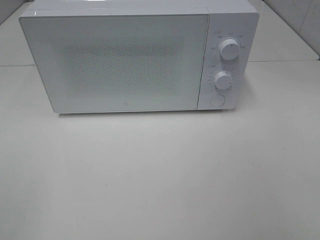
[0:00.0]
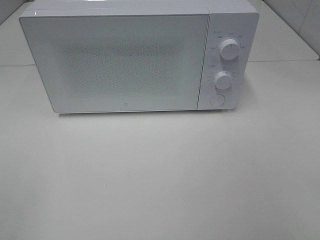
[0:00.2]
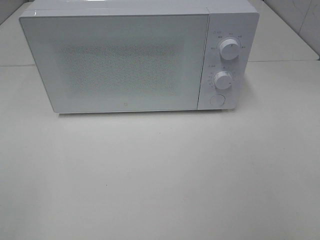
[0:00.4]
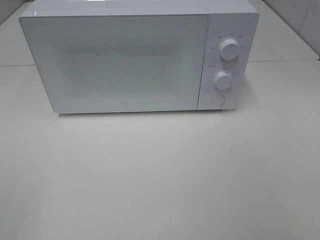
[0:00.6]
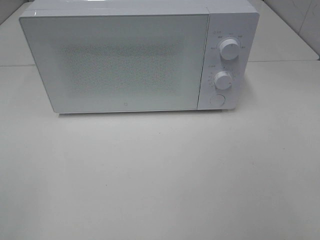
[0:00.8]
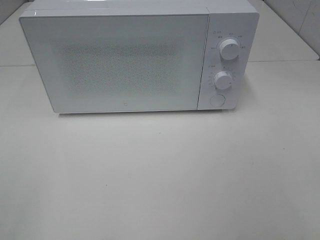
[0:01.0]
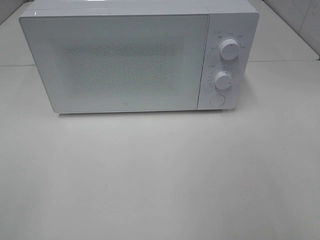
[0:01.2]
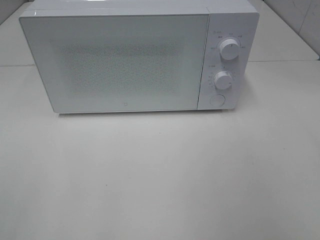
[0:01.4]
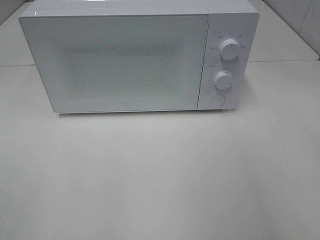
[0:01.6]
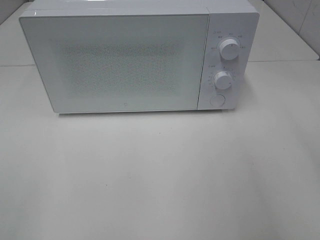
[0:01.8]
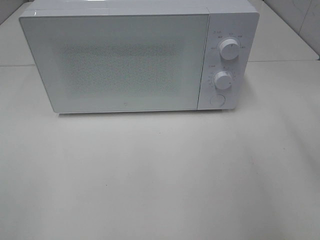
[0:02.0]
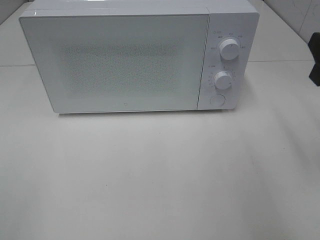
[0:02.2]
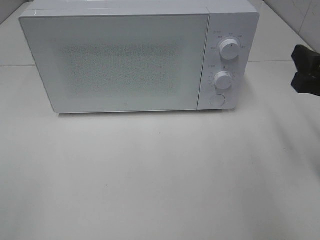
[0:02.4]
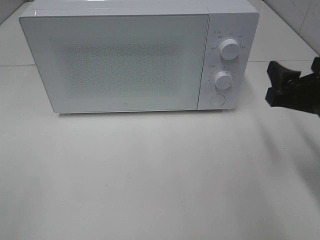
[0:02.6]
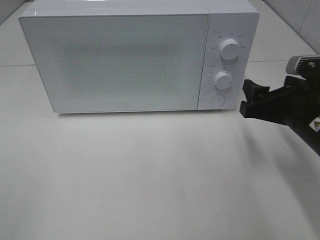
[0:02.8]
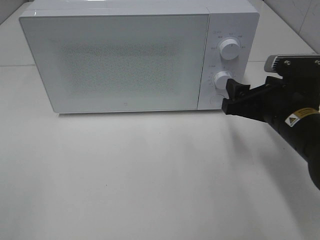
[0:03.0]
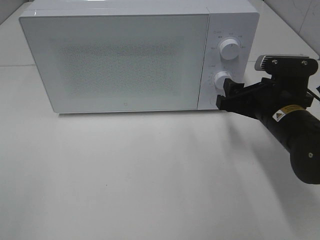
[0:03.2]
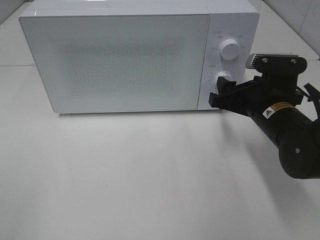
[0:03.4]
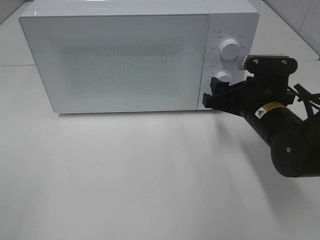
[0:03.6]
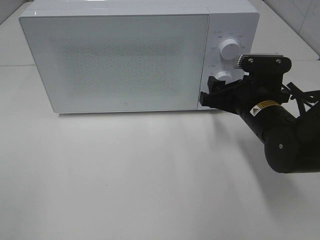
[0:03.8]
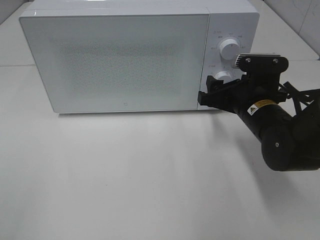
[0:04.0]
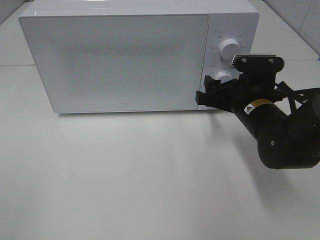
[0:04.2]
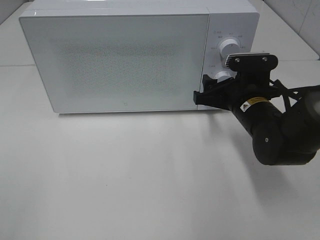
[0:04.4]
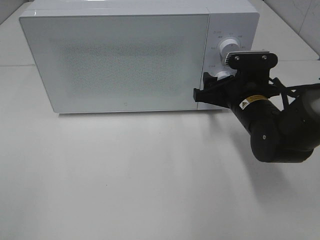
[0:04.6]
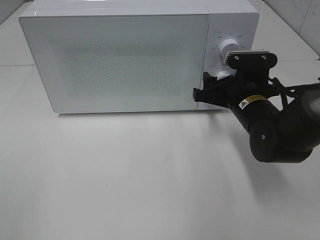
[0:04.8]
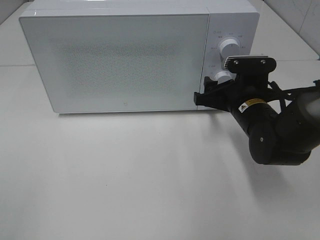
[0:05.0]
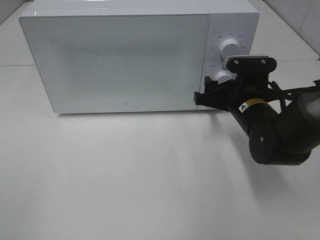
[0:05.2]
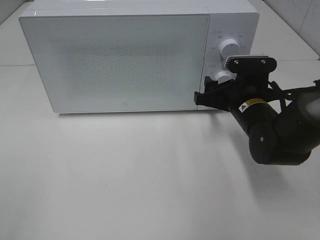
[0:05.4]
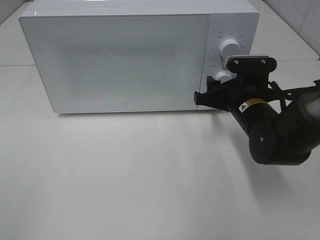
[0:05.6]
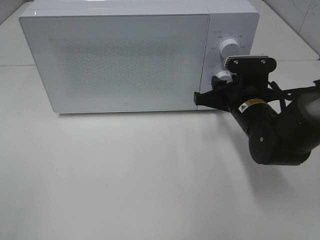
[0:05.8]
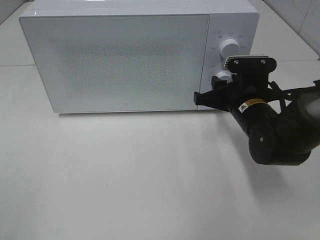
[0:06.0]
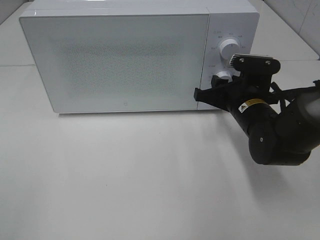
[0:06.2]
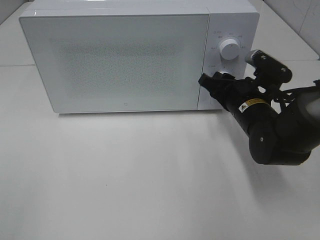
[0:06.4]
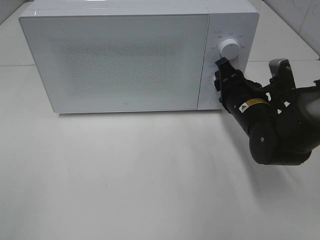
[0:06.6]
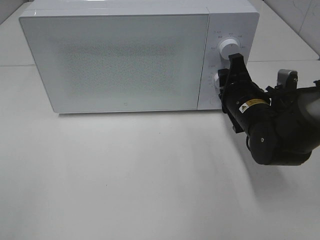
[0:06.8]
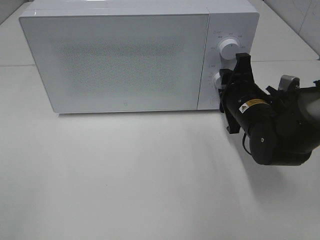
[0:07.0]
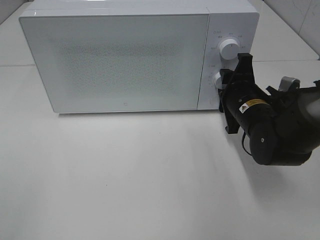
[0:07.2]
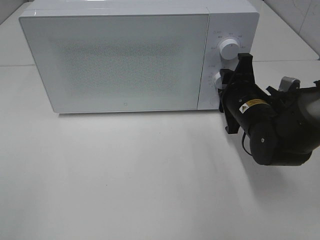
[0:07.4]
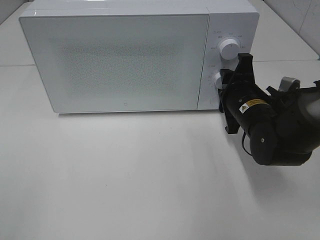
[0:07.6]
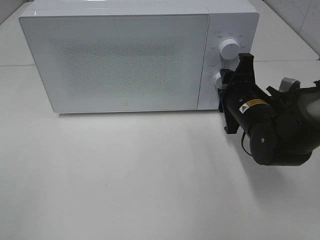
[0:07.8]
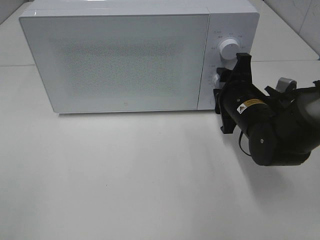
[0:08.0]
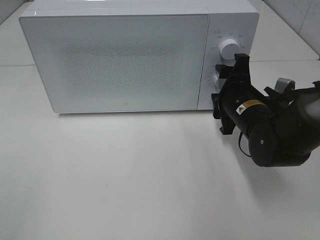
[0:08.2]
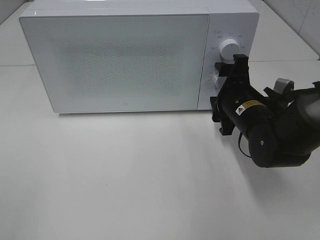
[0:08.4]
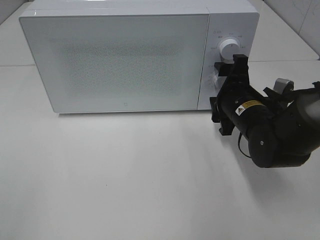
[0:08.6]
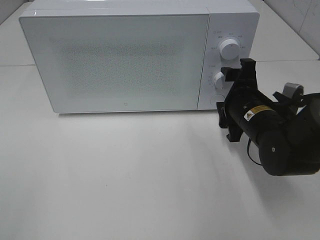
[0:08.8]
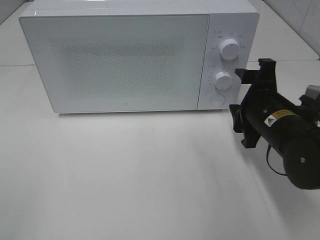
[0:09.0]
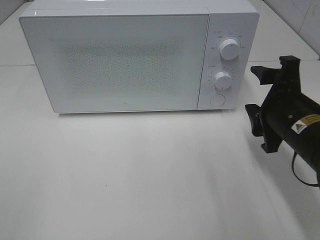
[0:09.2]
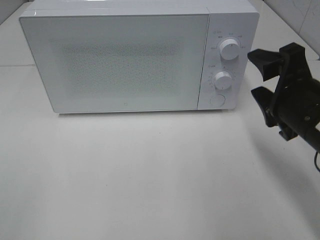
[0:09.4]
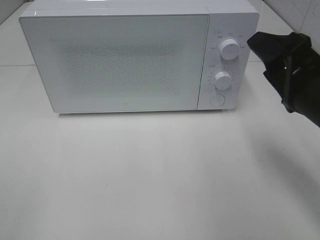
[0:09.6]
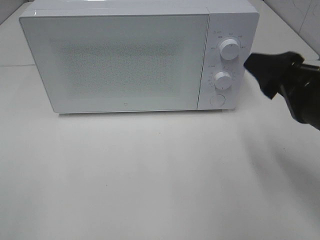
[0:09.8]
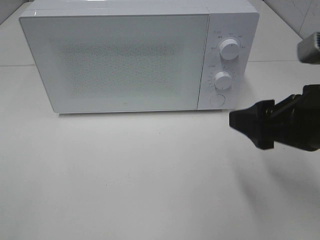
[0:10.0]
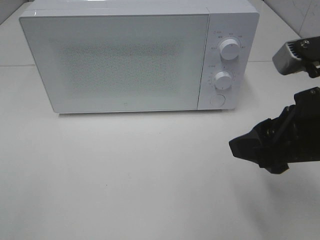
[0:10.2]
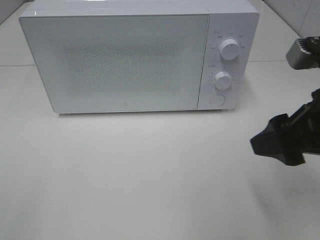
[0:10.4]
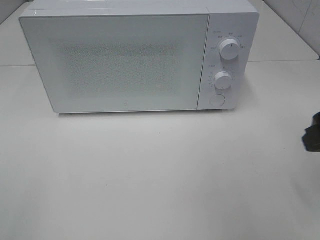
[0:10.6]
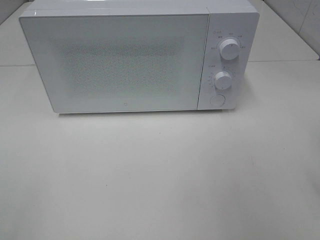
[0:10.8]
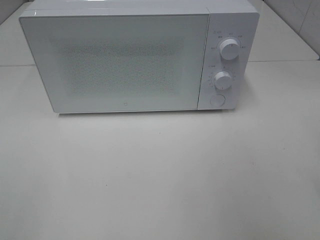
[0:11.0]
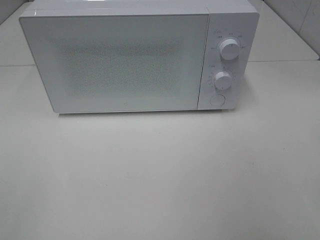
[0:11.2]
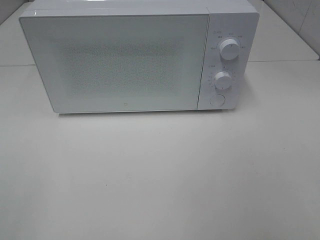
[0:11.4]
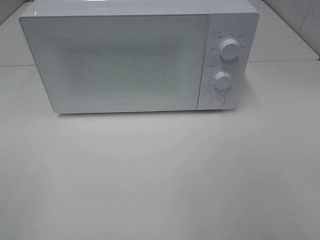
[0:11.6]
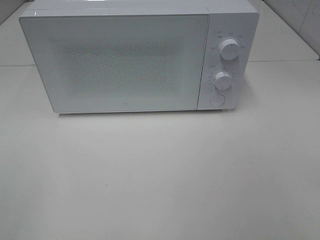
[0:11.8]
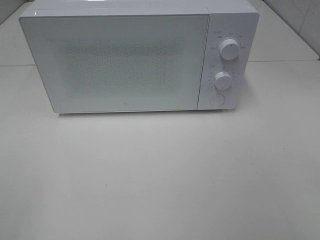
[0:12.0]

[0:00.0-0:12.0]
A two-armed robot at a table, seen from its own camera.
Task of the whole recording: Heat the burger.
Step, 0:00.0 to 0:08.8: Right hand: twist timer button.
0:01.6 to 0:03.0: The right gripper moves downward, forward and to the left, approximately 25 cm.
0:03.0 to 0:04.4: The right gripper heads forward, covering some 5 cm.
0:04.4 to 0:06.0: Both grippers stay put.
0:07.6 to 0:09.0: The right gripper ends up about 5 cm from where it was.
0:09.0 to 0:10.4: The right gripper is displaced upward and backward by roughly 15 cm.
0:10.4 to 0:12.0: The right gripper shifts approximately 20 cm backward and to the right.

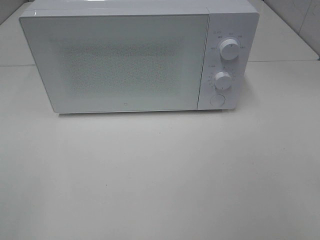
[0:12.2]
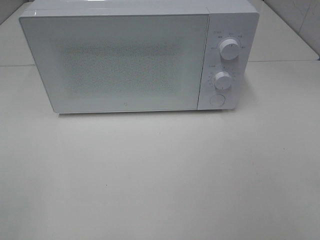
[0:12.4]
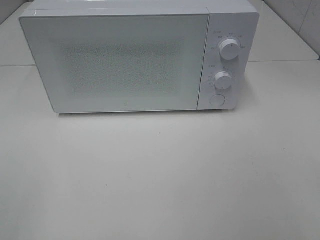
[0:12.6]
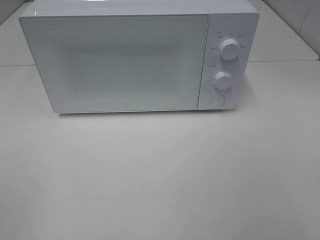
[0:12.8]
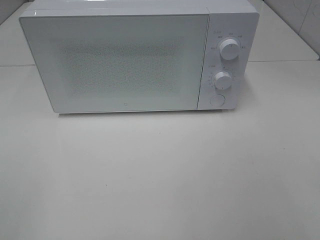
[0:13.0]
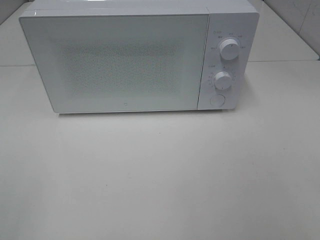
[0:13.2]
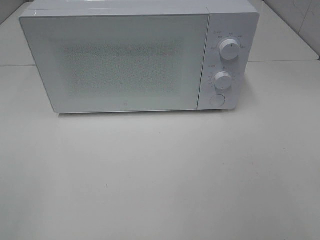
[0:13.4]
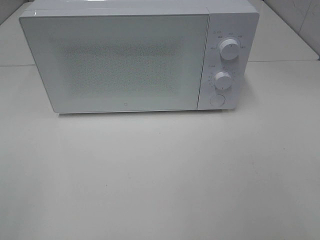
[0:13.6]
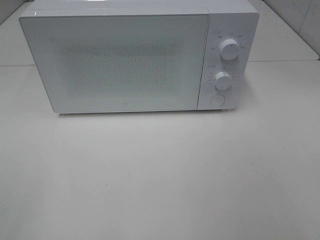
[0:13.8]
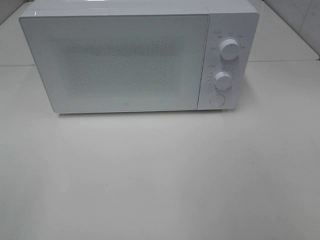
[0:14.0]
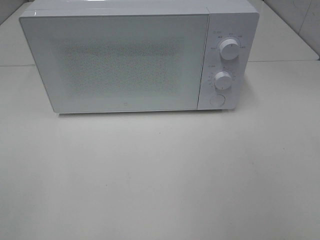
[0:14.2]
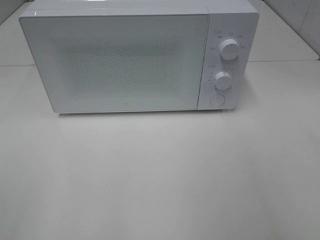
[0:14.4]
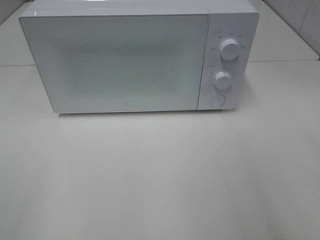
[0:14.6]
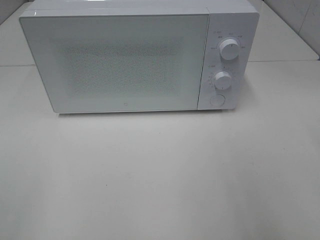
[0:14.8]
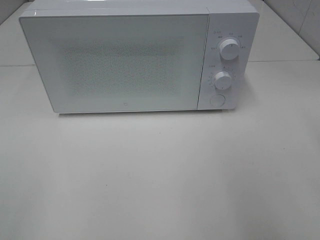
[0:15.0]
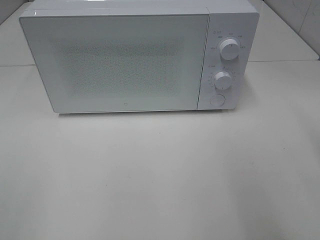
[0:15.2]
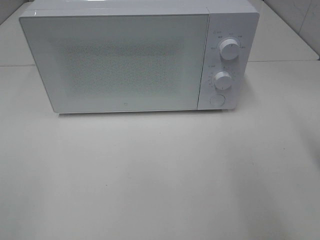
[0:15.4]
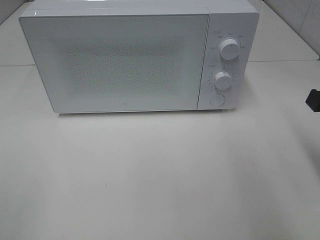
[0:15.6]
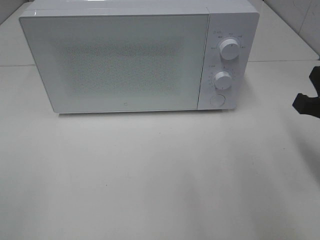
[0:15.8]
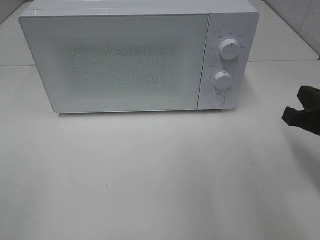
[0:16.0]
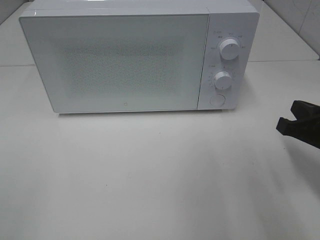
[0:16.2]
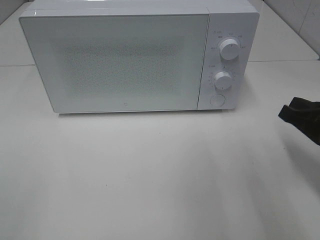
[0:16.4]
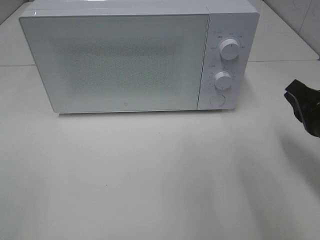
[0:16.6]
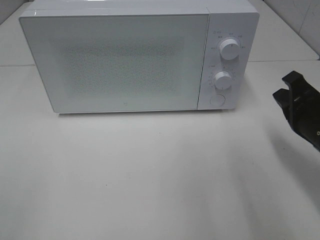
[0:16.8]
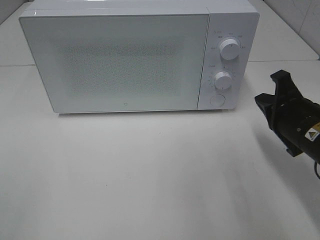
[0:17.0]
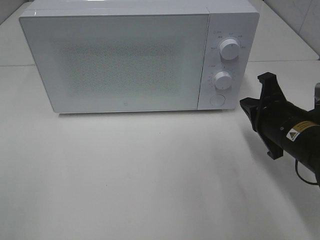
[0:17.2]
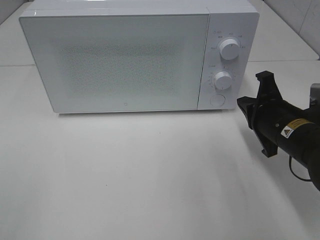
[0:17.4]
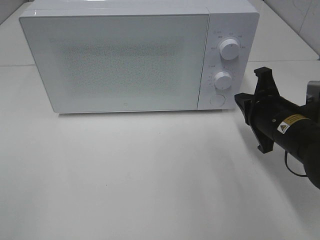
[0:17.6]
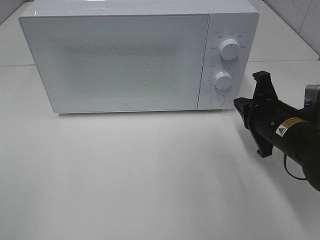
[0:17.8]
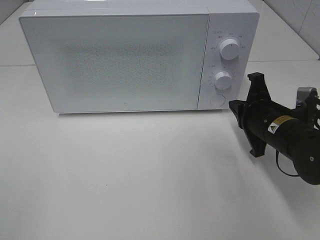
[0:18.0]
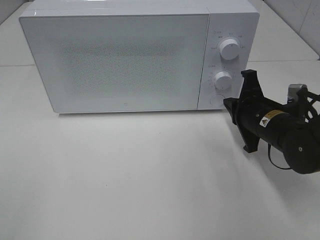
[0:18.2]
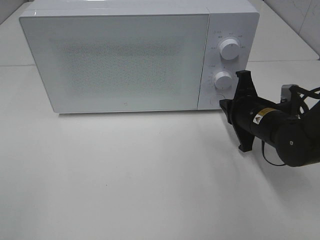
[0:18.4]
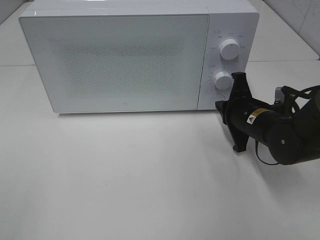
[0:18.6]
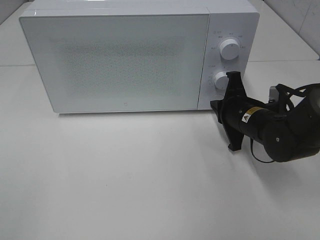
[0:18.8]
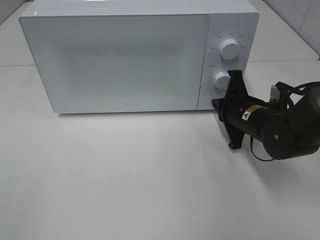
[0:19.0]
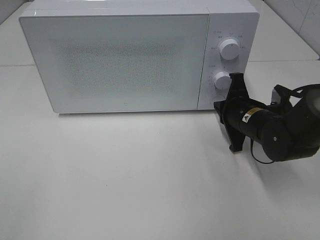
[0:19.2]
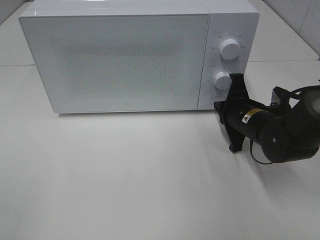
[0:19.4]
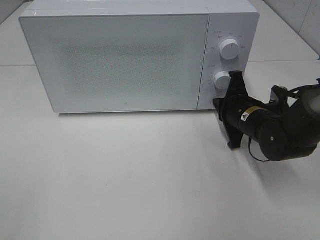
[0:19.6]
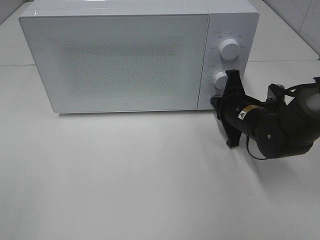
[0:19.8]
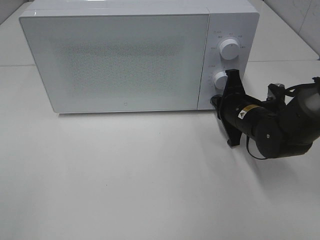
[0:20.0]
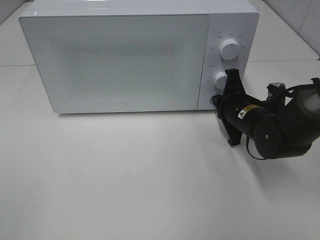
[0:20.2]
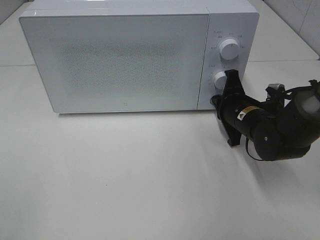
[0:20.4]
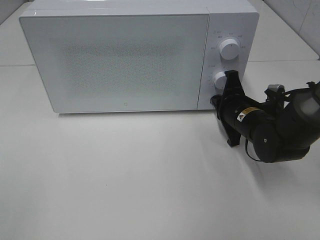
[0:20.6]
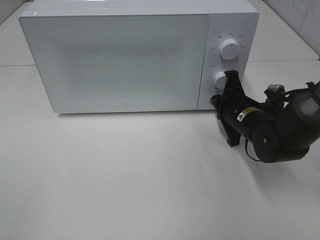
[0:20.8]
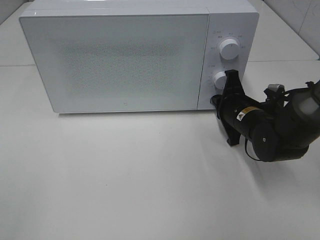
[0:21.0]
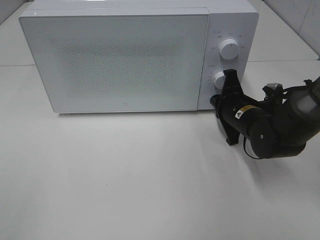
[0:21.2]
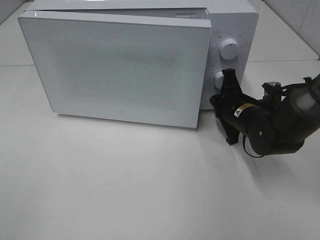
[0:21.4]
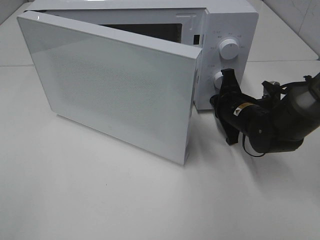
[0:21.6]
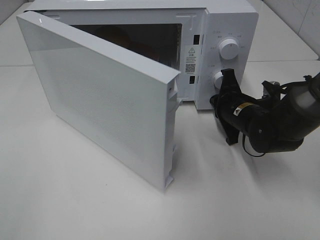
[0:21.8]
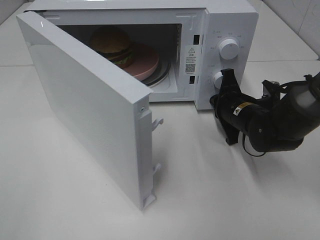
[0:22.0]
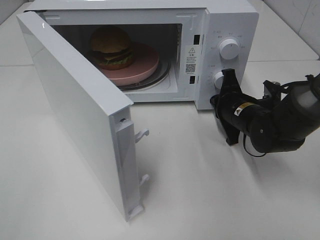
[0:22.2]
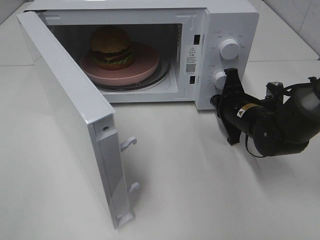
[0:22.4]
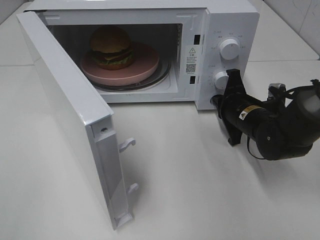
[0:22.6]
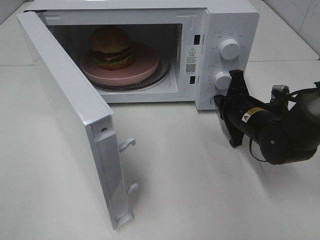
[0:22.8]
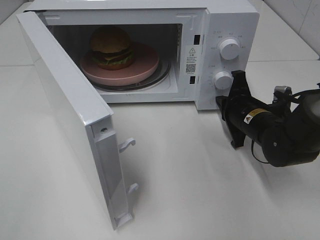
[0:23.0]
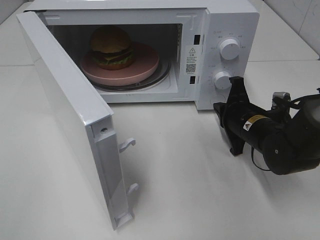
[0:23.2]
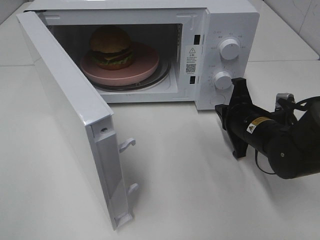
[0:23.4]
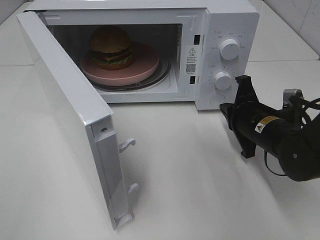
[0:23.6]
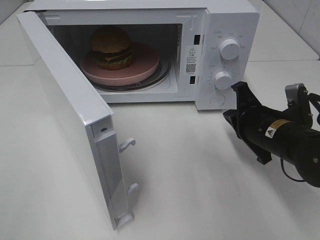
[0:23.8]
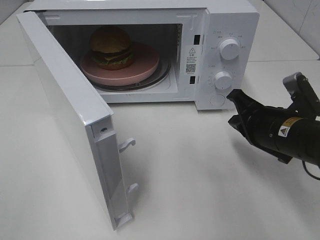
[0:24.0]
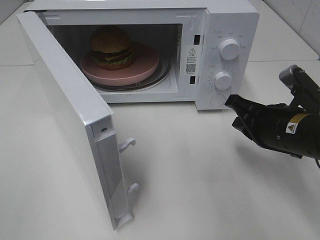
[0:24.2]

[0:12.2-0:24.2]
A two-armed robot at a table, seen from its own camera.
Task of the whole recording: Heat the burger.
Step, 0:12.2 to 0:23.6: Right hand: press the switch.
0:15.2 to 0:16.6: The right gripper is displaced downward and forward by roughly 15 cm.
0:16.6 to 0:18.2: The right gripper moves forward, to the left and downward, about 10 cm.
0:18.2 to 0:21.2: The grippers stay close to where they were, moving slightly.
0:22.6 to 0:24.2: The right gripper travels backward and upward by about 10 cm.
